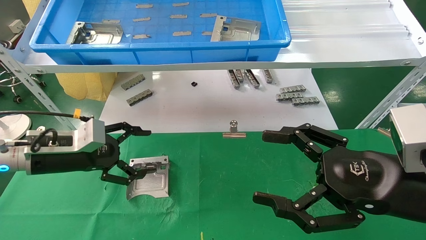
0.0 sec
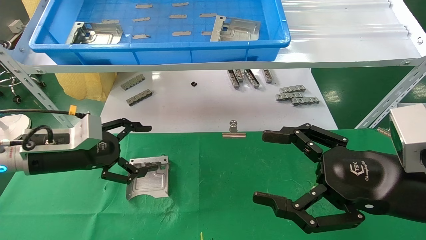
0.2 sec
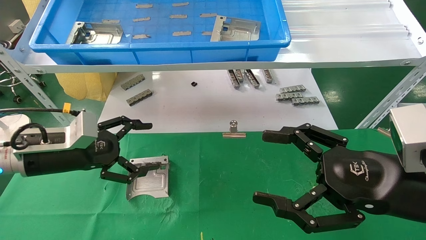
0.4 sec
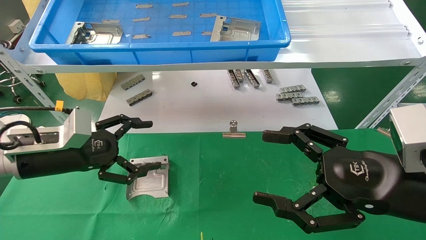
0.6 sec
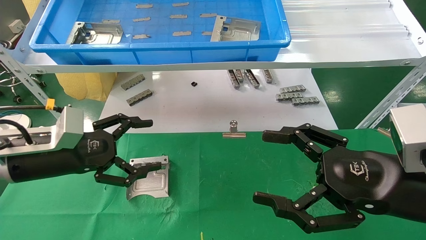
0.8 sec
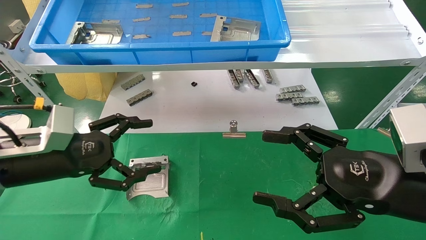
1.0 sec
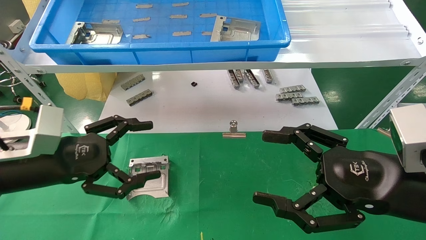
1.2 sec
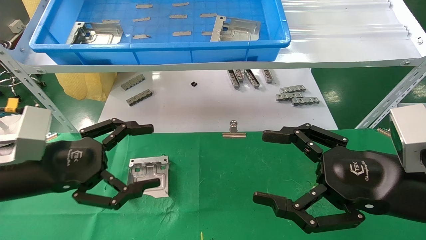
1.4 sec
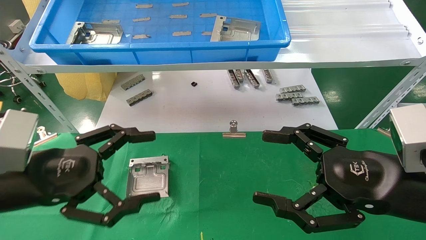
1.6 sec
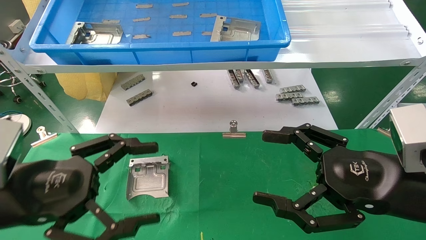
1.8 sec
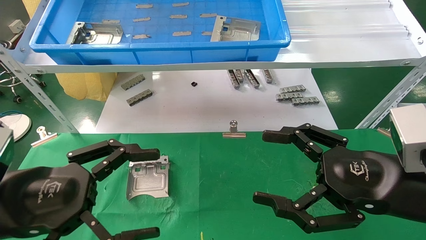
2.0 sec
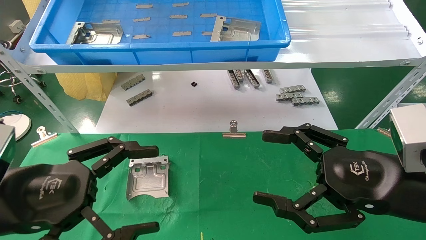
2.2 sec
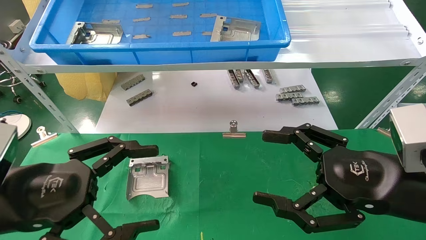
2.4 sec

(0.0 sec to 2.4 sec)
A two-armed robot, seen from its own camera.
Task of the whole recording: use the mechanical arm to pick up the parts and place them on the table.
0.0 sec - 1.2 sec: The left gripper travels backward by about 10 cm.
1.2 sec - 2.4 sec: The left gripper goes roughly 10 cm backward.

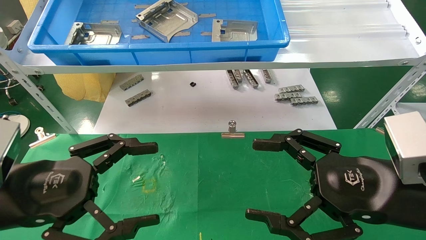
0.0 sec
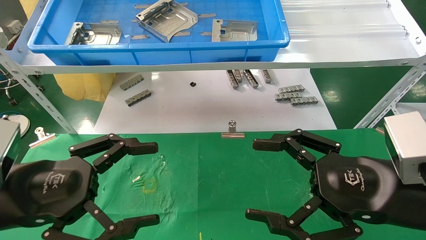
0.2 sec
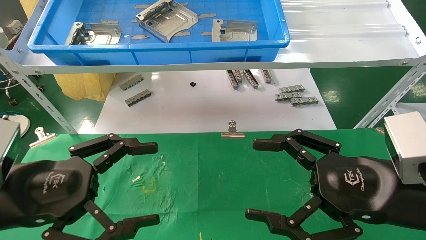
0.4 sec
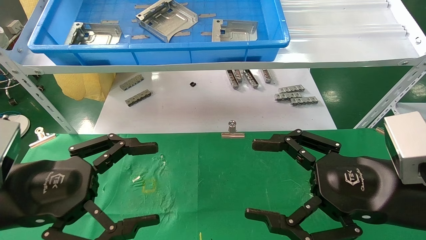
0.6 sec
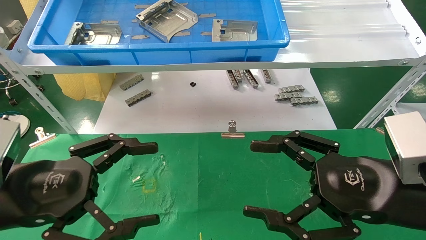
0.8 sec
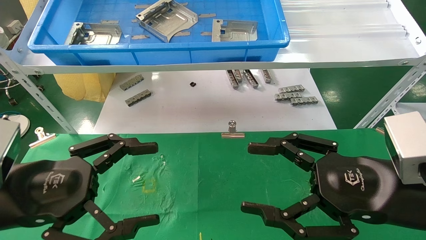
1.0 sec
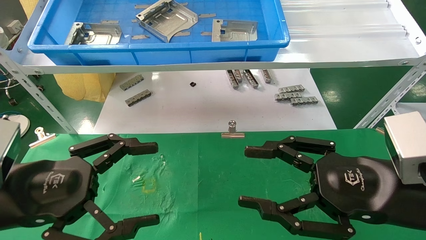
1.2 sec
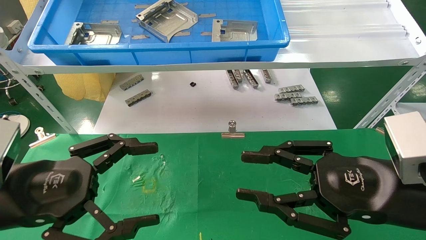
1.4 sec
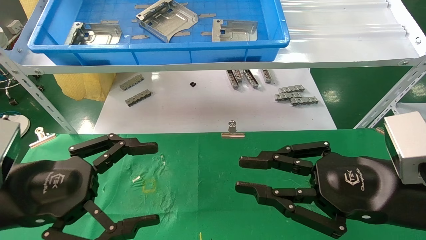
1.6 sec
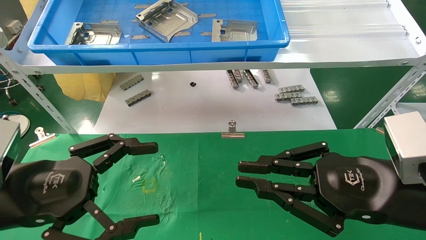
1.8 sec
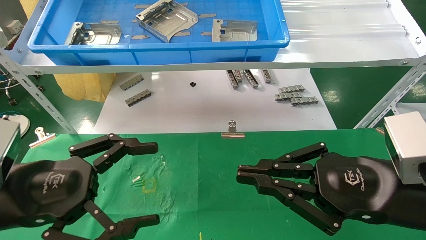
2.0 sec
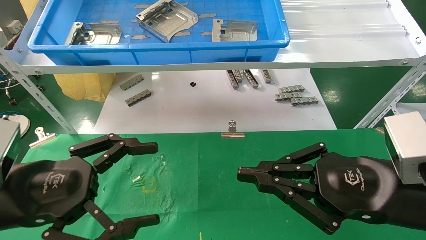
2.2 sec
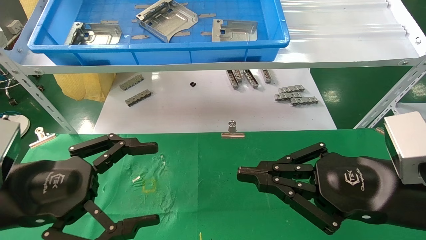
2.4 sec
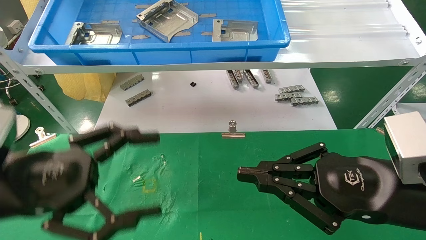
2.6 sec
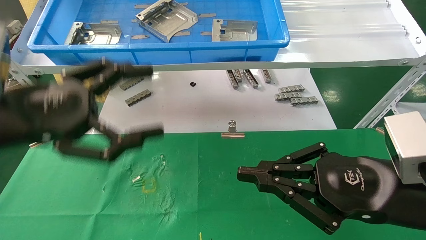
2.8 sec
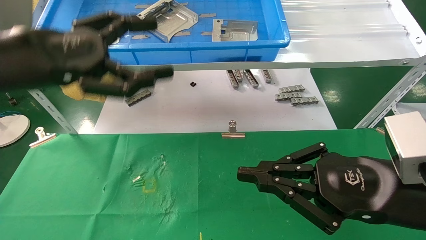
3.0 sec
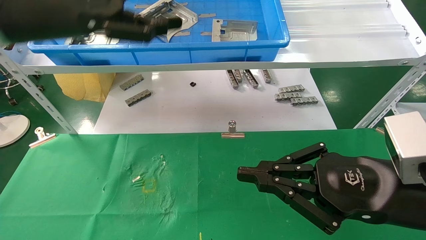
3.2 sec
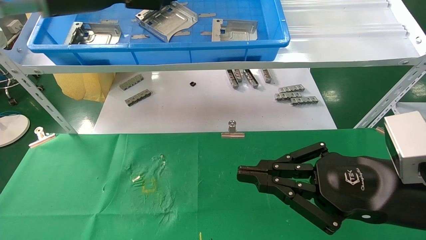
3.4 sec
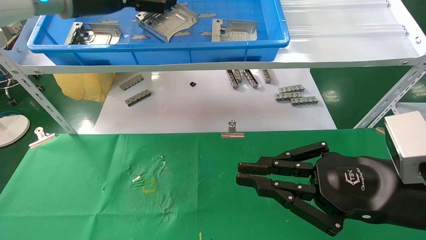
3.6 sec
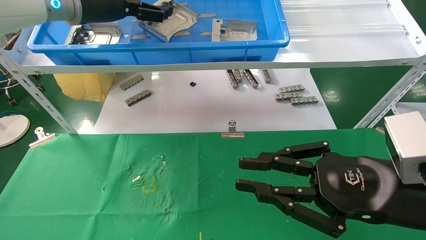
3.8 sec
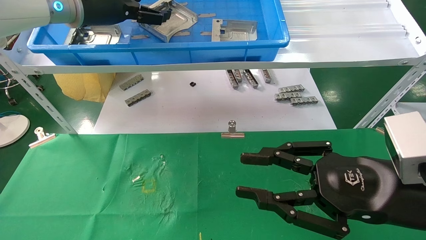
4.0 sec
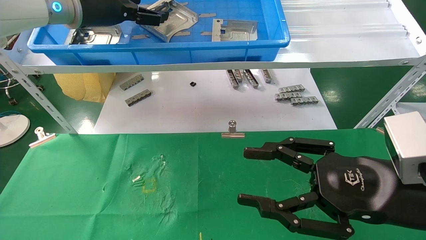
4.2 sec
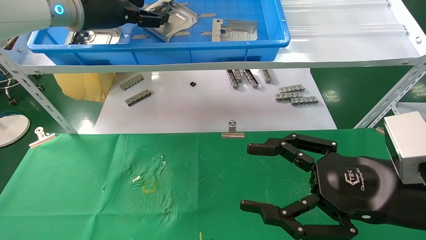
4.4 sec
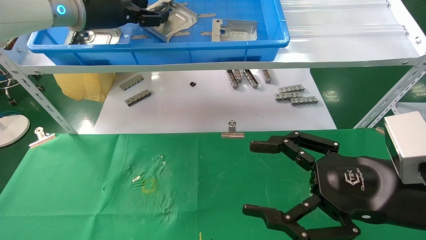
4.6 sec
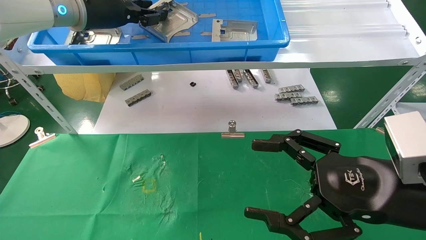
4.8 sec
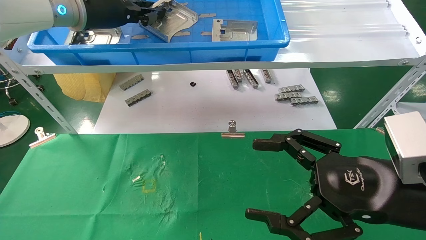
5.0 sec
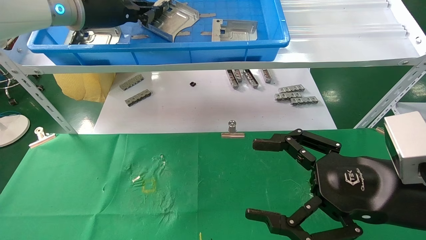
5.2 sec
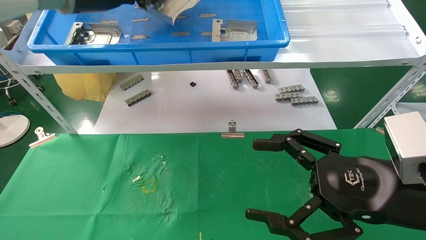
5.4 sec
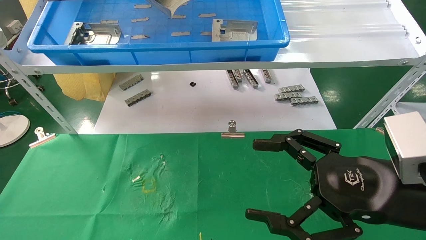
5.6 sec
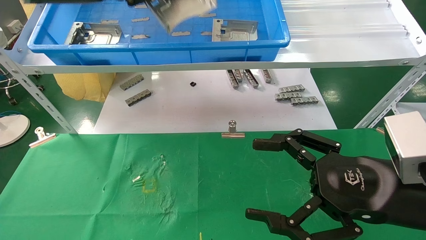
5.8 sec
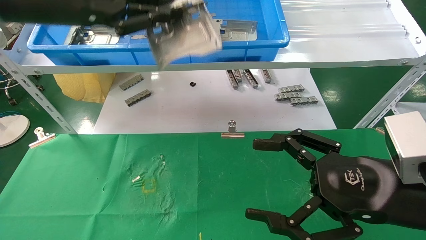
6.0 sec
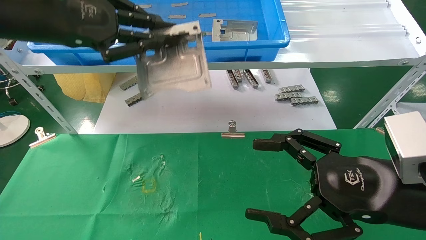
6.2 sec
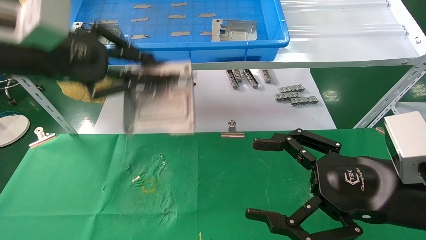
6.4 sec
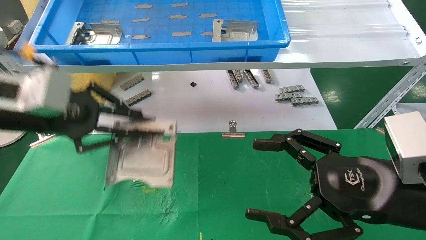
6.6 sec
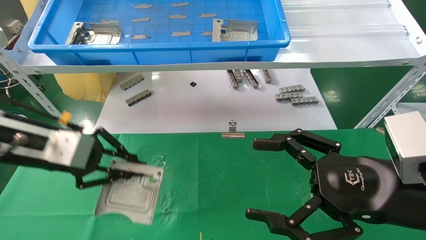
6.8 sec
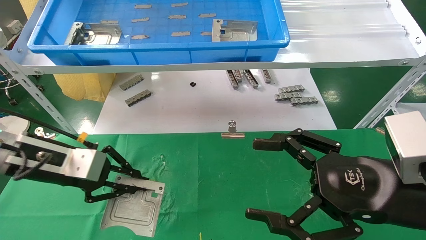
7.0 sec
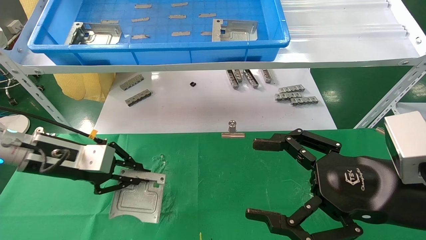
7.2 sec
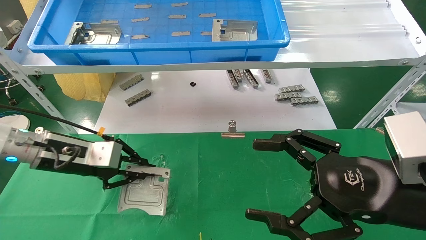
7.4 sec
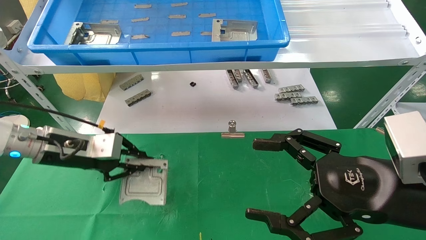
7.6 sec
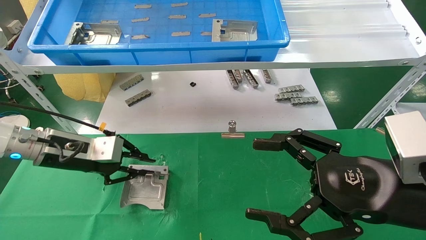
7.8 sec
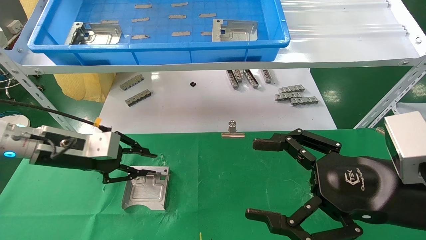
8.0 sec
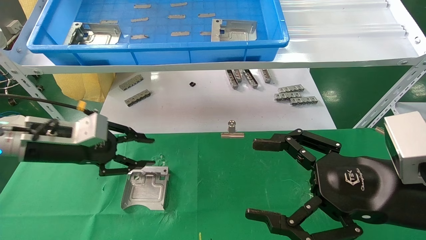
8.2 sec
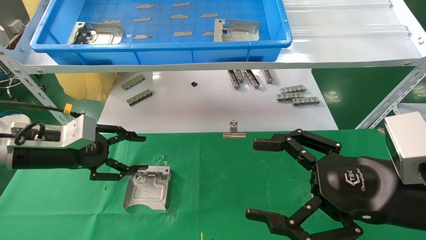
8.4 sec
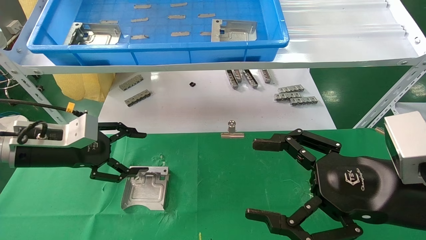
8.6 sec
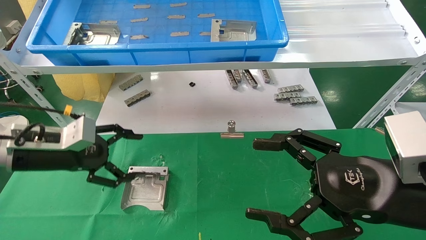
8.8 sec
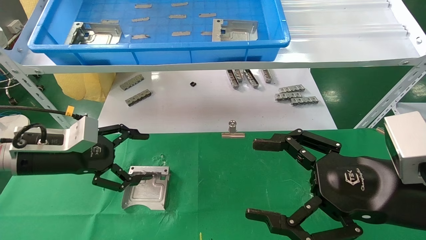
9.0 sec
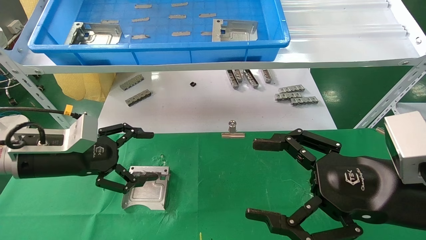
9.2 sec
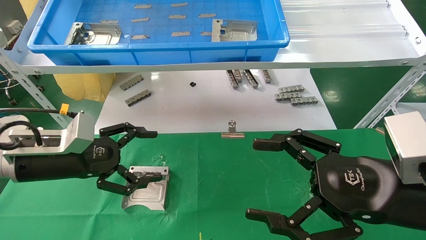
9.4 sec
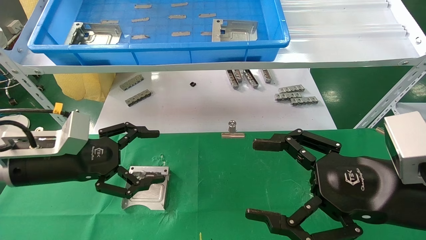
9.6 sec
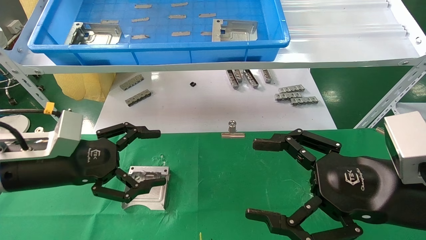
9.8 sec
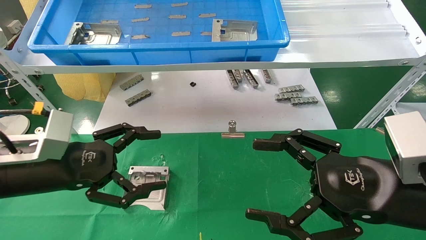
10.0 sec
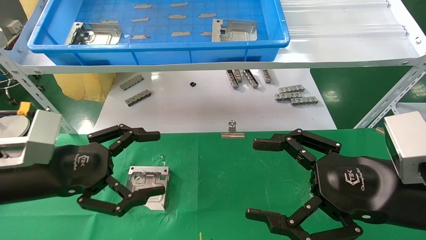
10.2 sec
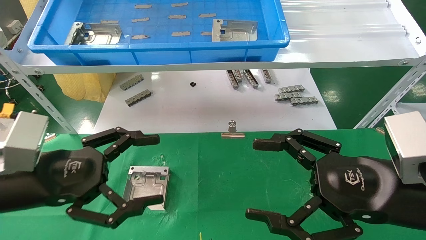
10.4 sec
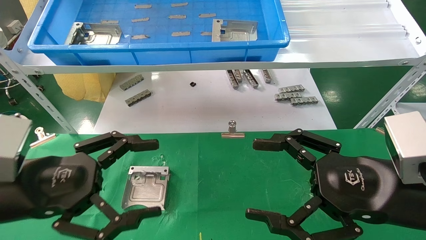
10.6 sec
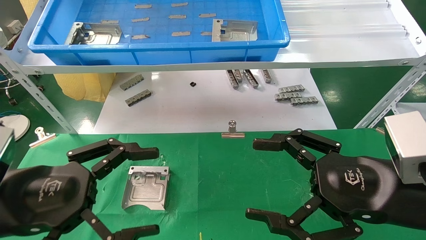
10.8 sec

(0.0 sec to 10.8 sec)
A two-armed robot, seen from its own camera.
Task of the whole recording: use the mechanical arm to pick up the parts and place them on the table.
Step, 2.6 sec - 5.4 sec: Pick up the hard drive bracket from the feeding area.
Step, 5.6 sec - 8.2 sec: Place the hard drive bracket into the box.
0.0 sec - 1.6 sec: The right gripper closes its fingers.
1.6 sec - 3.0 sec: The right gripper closes its fingers. Meanwhile the left gripper travels upward and forward by roughly 15 cm.
3.0 sec - 4.6 sec: The right gripper opens its fingers. The left gripper heads forward and upward, covering roughly 15 cm.
4.6 sec - 6.2 sec: The left gripper moves backward, some 15 cm, and closes its fingers.
6.2 sec - 7.8 sec: The left gripper travels downward by some 20 cm.
7.8 sec - 9.2 sec: The left gripper opens up.
9.2 sec - 10.8 sec: The left gripper shifts approximately 15 cm backward.

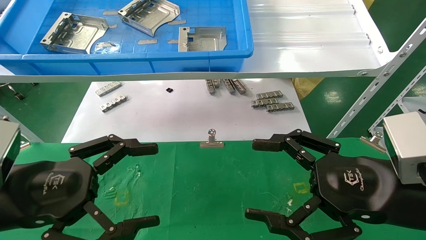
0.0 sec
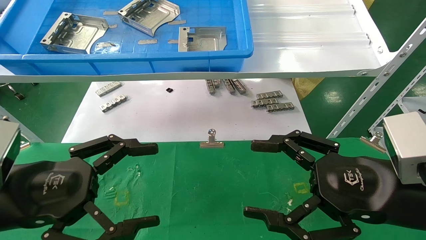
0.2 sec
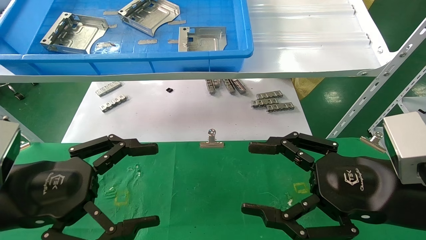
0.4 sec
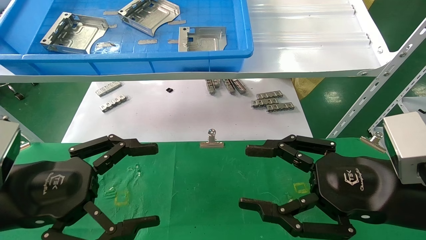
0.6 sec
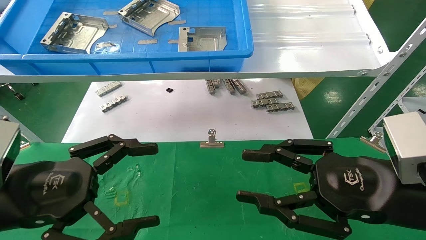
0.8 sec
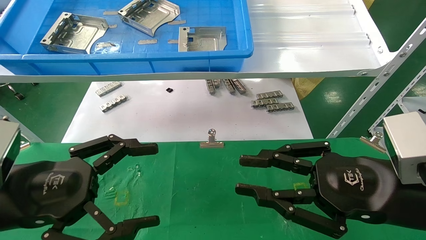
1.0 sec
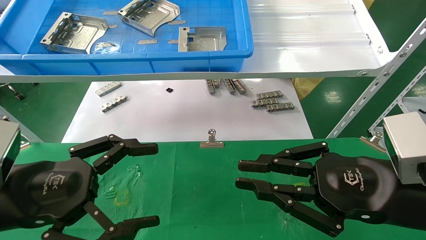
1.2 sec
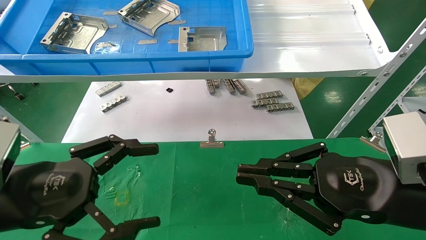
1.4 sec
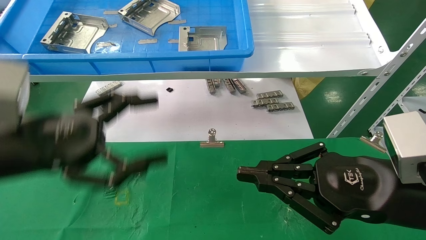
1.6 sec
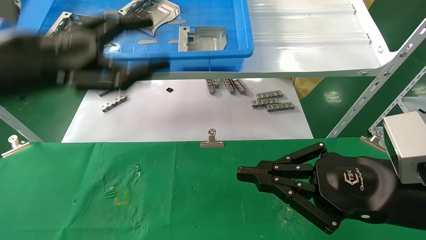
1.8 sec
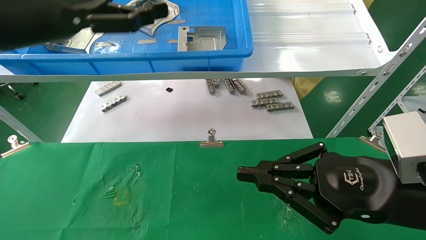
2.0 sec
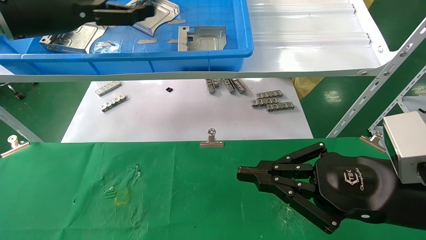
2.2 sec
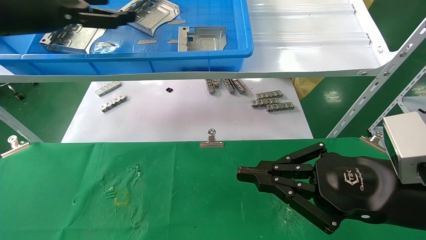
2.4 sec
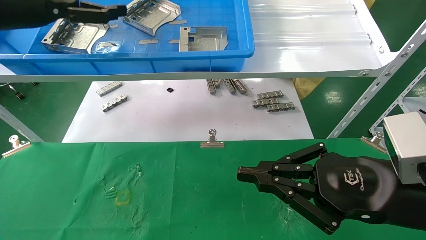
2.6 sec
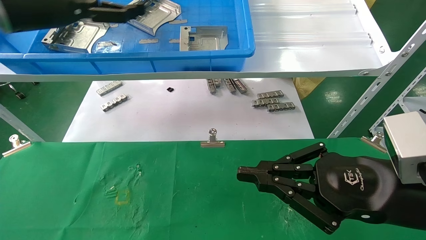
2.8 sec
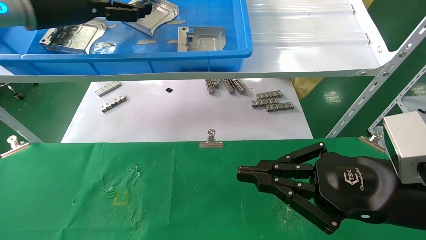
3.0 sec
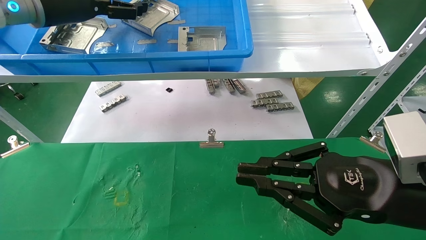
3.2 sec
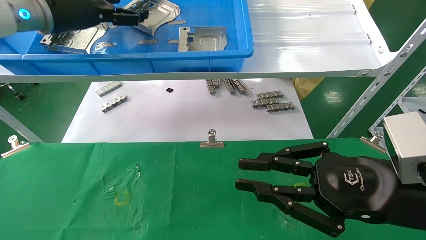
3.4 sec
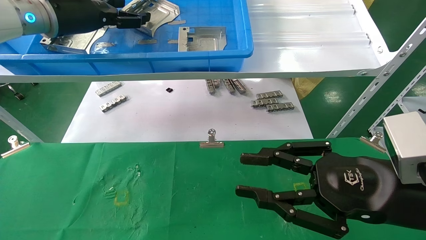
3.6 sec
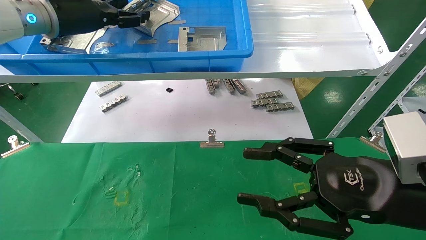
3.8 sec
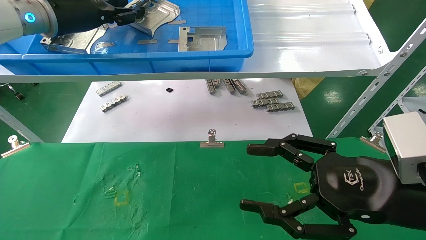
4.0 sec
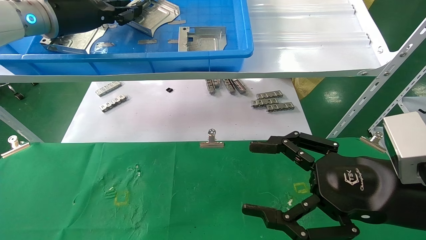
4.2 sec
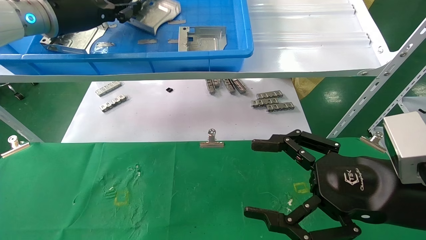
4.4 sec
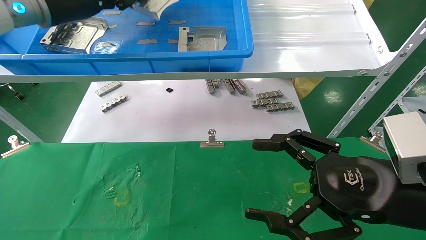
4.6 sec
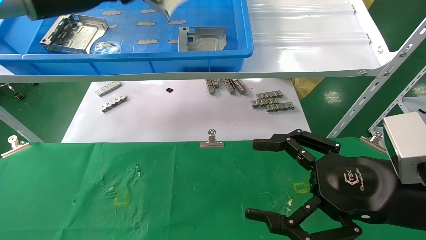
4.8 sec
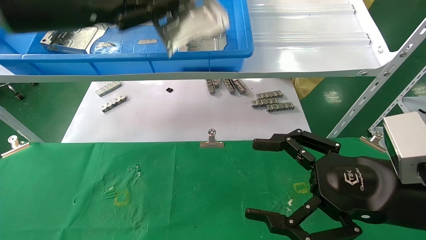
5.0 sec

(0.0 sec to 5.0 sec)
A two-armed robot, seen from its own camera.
Task of the whole recording: use the mechanical arm to pick up the parts and place them on the table.
Step, 1.8 sec - 4.4 sec: Pick up the hard drive bracket from the feeding area.
0.0 sec - 1.6 sec: The right gripper closes its fingers, while the left gripper is displaced upward by about 5 cm.
1.6 sec - 3.4 sec: The left gripper heads forward and upward, covering roughly 25 cm.
3.4 sec - 5.0 sec: The left gripper shifts about 10 cm backward, and closes. Meanwhile the right gripper opens.
